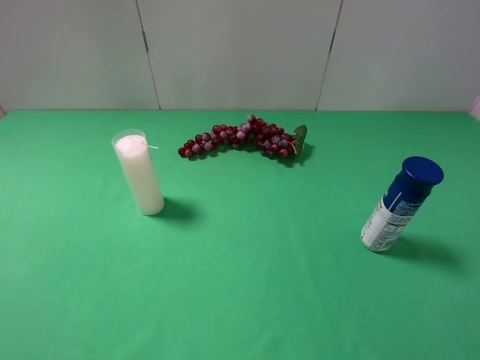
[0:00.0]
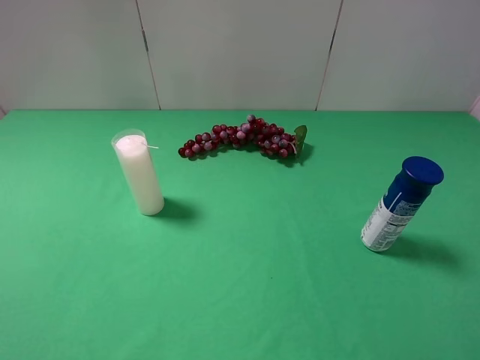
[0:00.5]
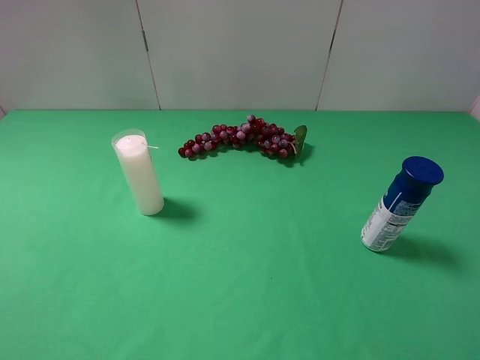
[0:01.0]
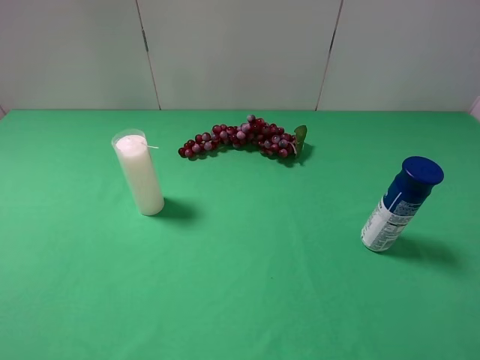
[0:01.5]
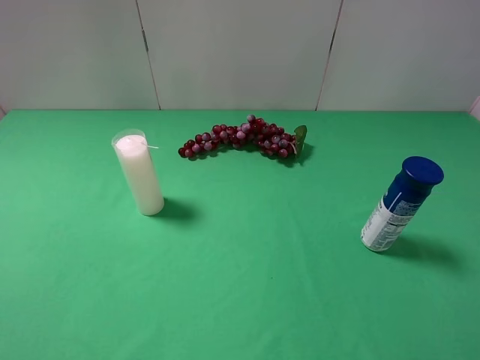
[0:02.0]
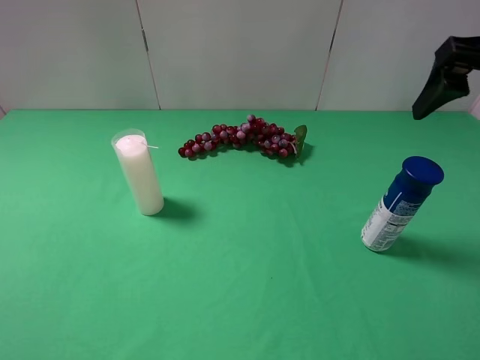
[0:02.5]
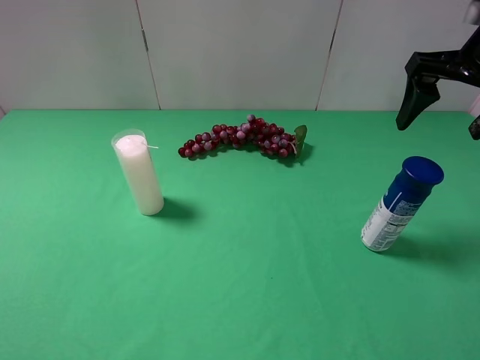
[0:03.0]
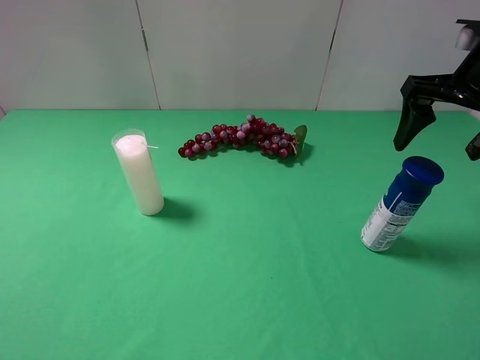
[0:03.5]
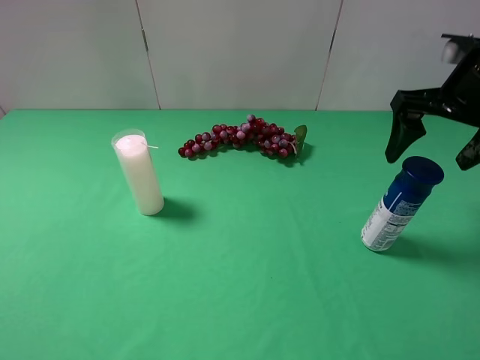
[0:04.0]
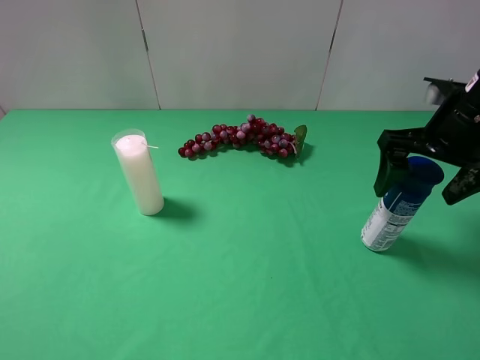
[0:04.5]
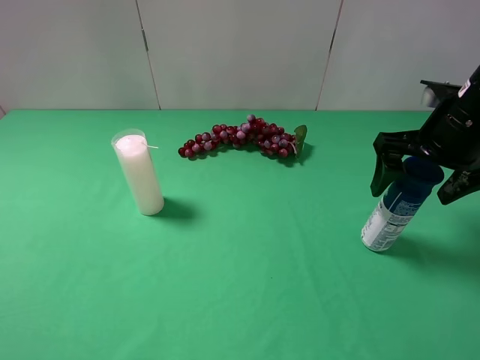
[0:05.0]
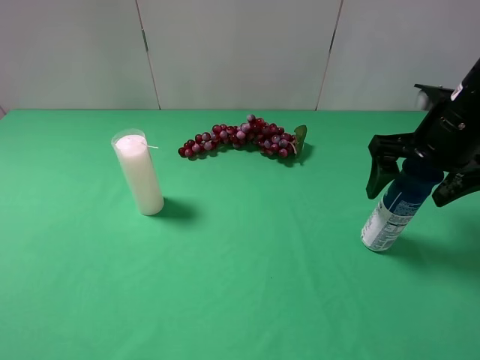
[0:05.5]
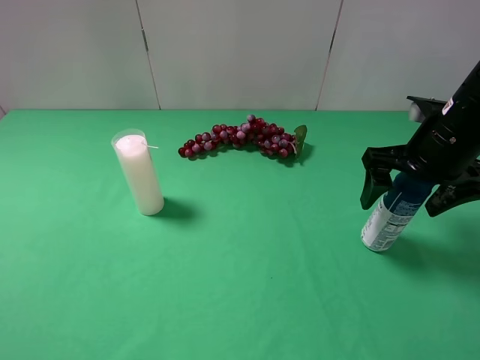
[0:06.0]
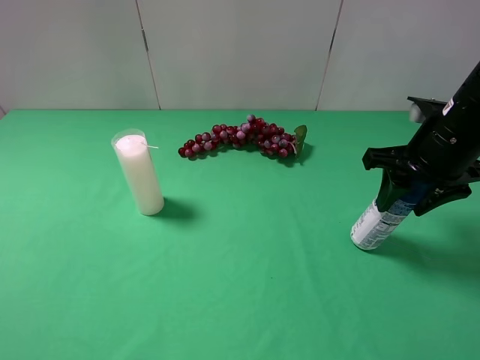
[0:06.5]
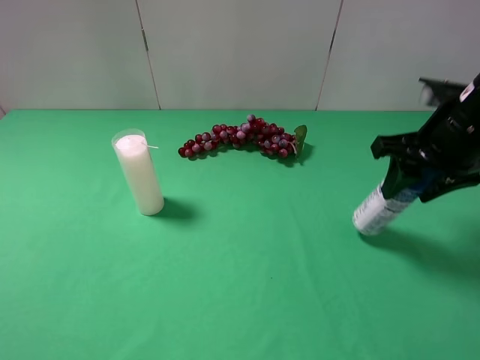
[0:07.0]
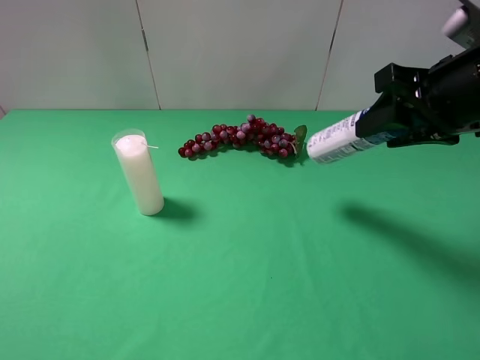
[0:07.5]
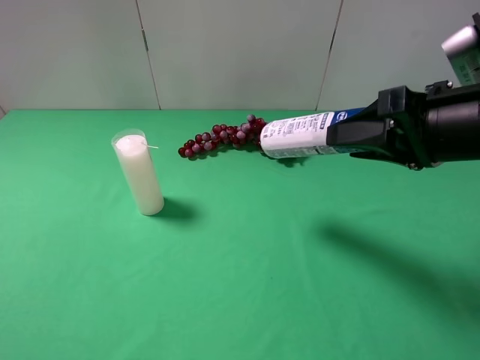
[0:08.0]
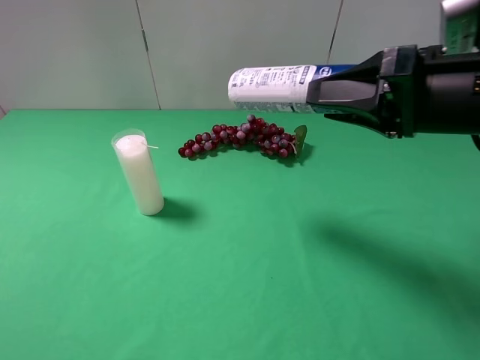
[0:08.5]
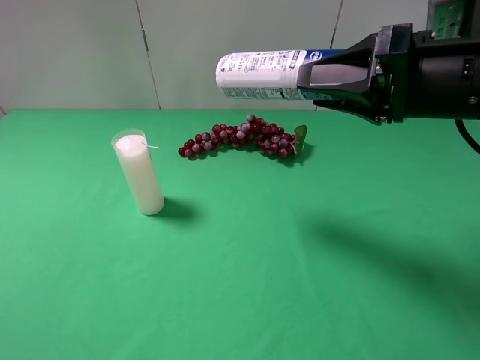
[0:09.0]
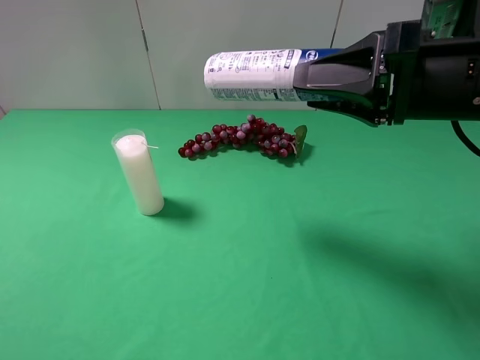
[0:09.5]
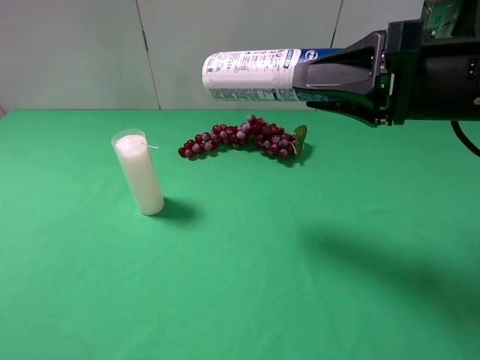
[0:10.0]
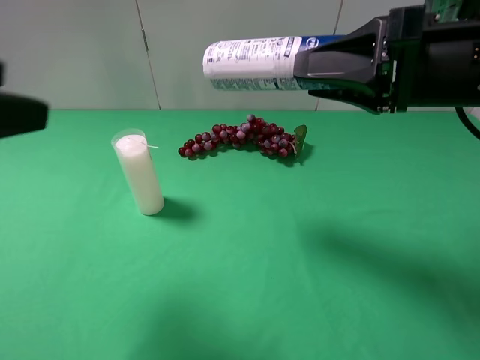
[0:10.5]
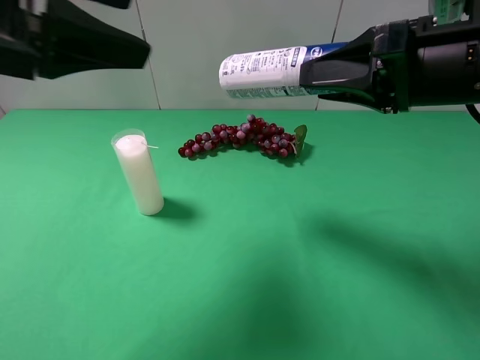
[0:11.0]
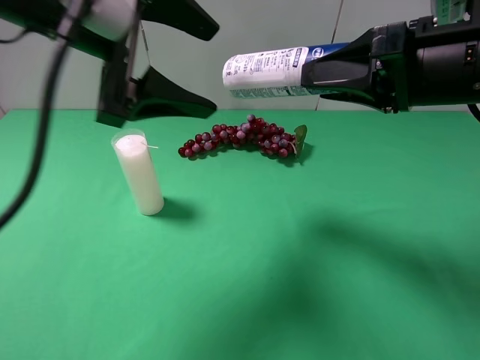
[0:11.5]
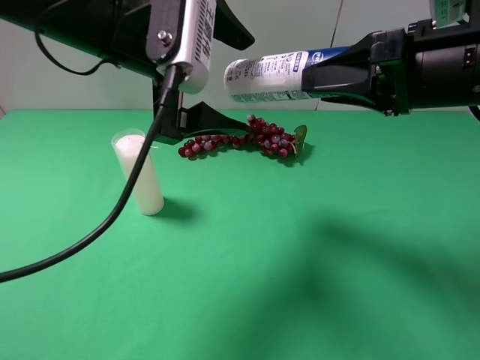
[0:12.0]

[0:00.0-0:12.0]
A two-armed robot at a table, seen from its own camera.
Task of the whole recording: use the right gripper to pick up the item and transfer it from the right gripper to the left gripper.
Step, 0:00.0 to 0:06.0: Use the right gripper to grab the yogurt on the right side of the table.
0:02.0 to 0:04.0: The right gripper moves forward, roughly 20 cm.
0:04.0 to 0:06.0: The right gripper is displaced downward by approximately 5 cm.
0:06.0 to 0:08.0: The right gripper goes about 10 cm backward and upward, and closes.
0:08.0 to 0:10.0: There are only small adjustments of the grippers.
0:10.0 to 0:12.0: The left gripper goes roughly 30 cm forward and to the right, and opens up.

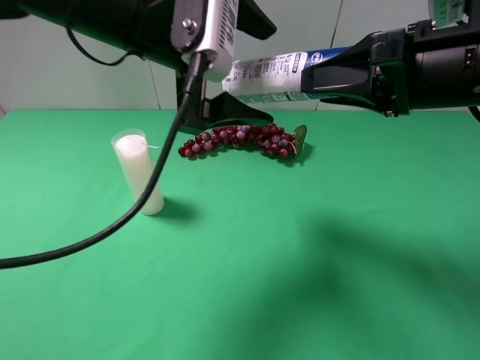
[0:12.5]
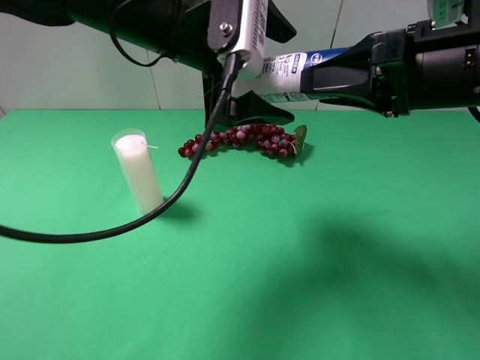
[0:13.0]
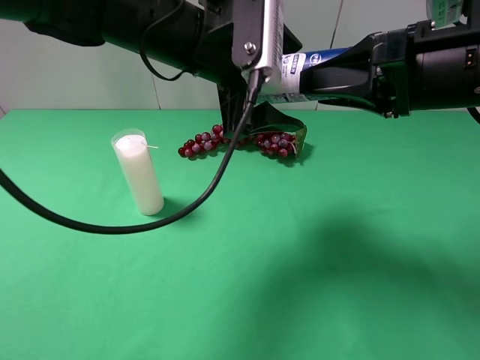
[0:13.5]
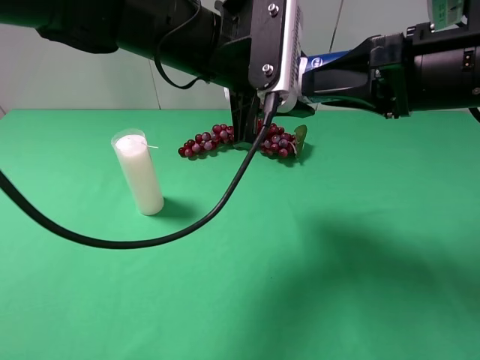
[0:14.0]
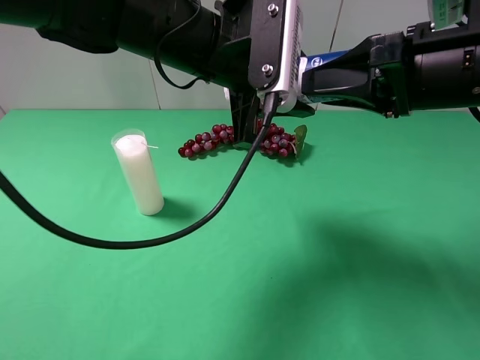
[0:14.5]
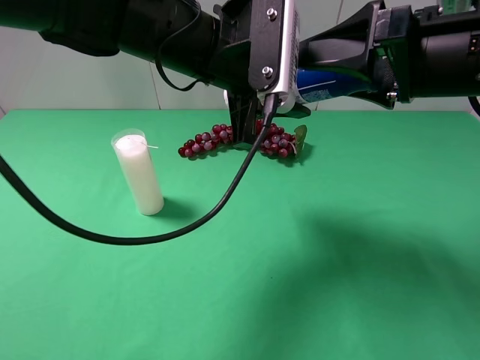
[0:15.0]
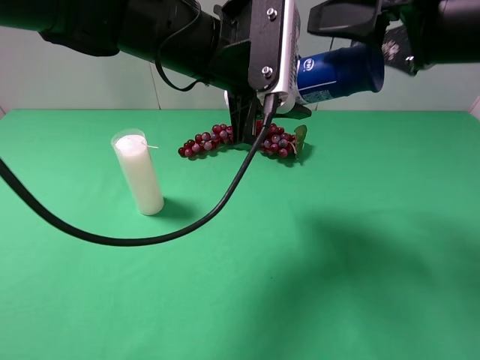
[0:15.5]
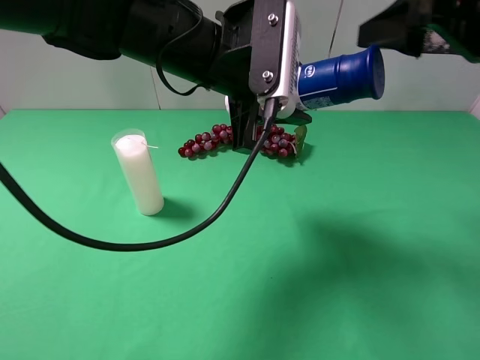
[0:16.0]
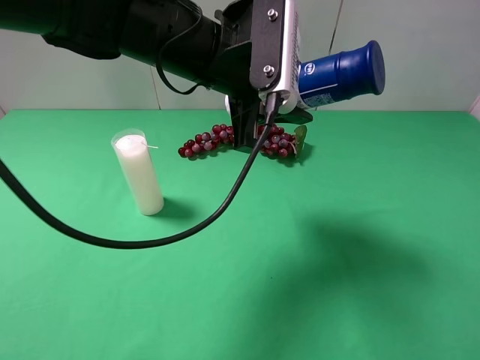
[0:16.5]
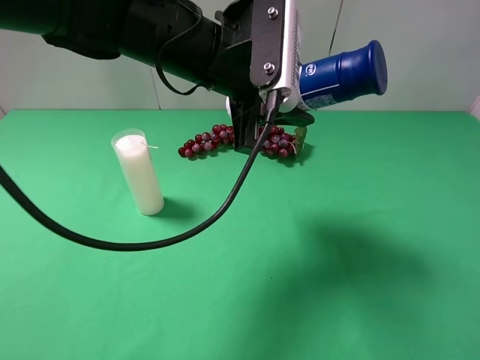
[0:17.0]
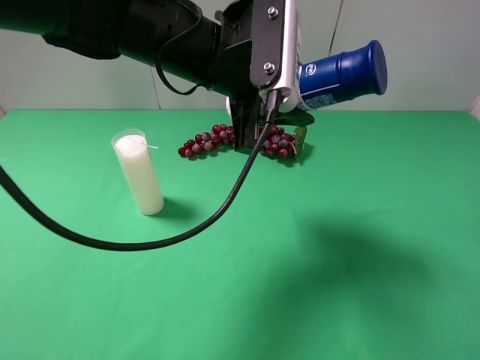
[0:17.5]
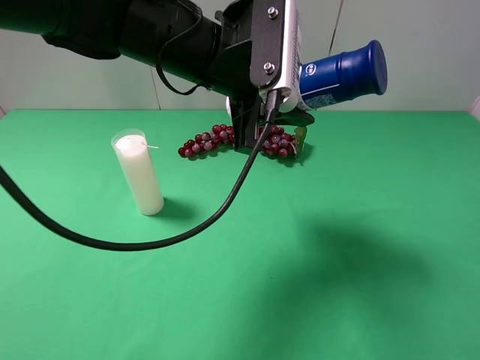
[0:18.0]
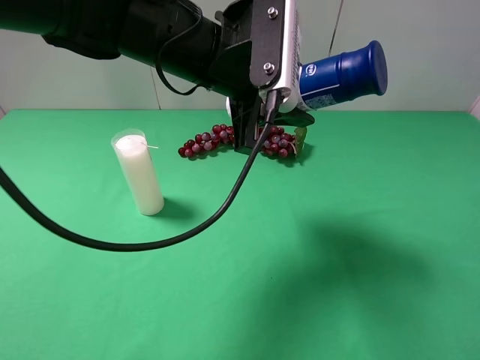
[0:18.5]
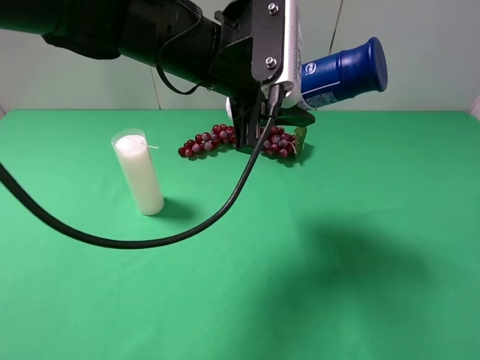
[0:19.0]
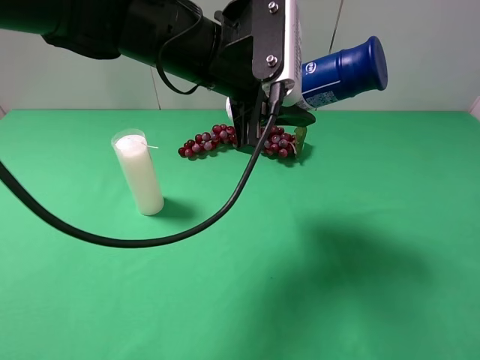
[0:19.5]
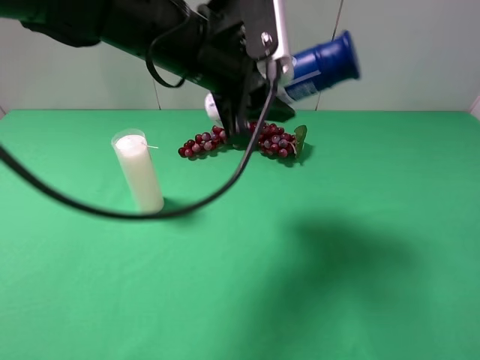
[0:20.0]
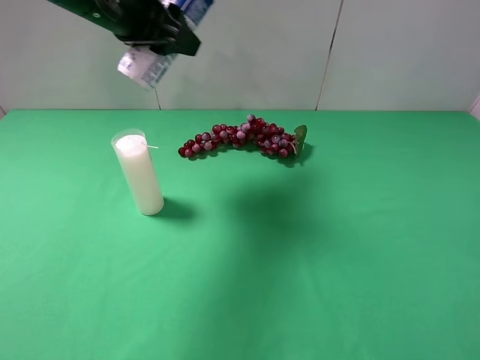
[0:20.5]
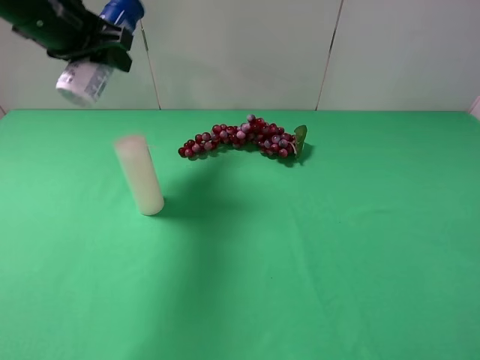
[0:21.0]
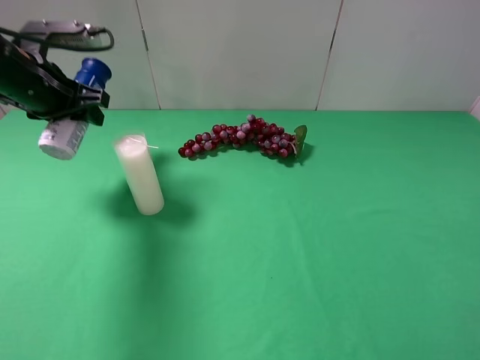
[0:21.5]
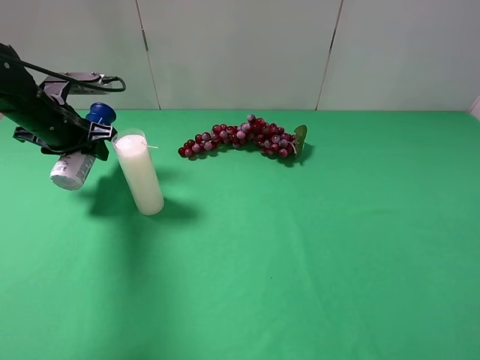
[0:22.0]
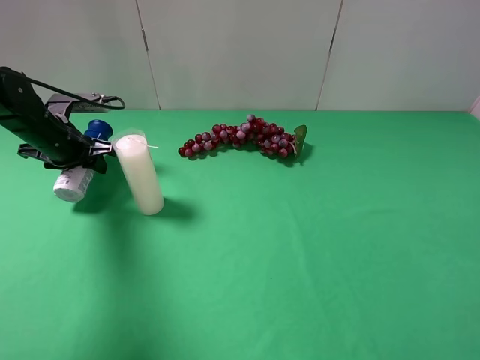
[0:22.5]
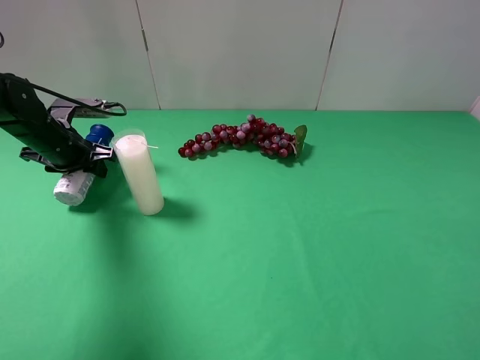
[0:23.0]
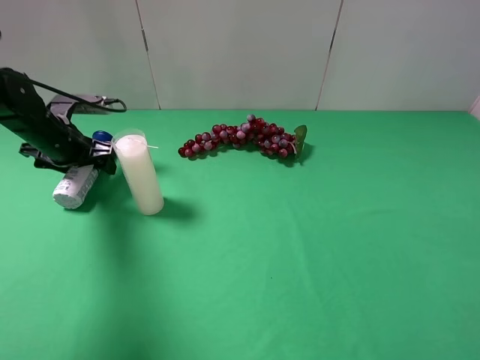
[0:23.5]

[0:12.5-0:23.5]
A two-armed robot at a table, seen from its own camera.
Task of the whole recording: use the right gripper to pick up the item and transfer it from the right gripper to the left gripper.
Step, 0:12.5 to 0:15.0: Pass the yogurt to the left gripper.
0:12.5 to 0:14.5: The left gripper changes place by some 5 cm, and closes its fingers.
0:14.5 to 0:16.0: The right gripper moves about 5 cm, and opens its fingers.
0:16.0 to 0:18.0: The right gripper moves backward, approximately 20 cm.
0:18.0 to 0:20.0: The grippers stay close to where they were, moving slightly.
0:20.0 to 0:21.5: The left gripper is displaced to the left by roughly 20 cm.
0:21.5 to 0:23.5: The left gripper is displaced downward by about 10 cm, and opens up.

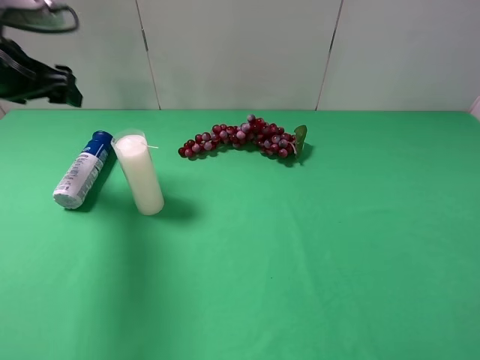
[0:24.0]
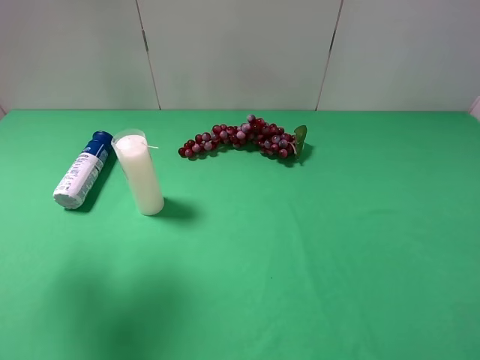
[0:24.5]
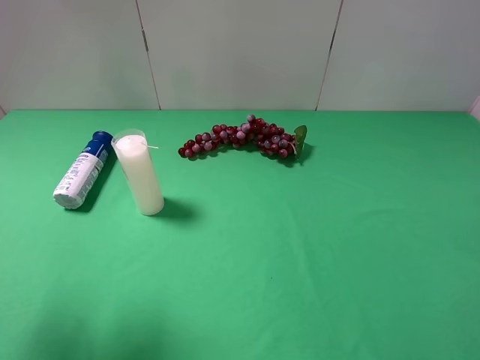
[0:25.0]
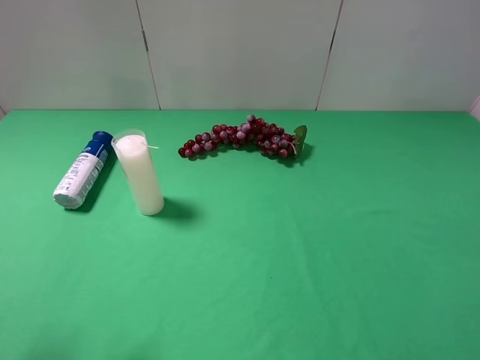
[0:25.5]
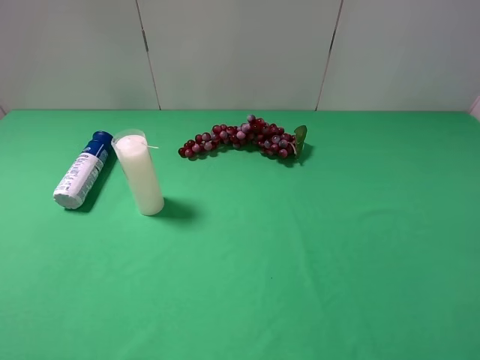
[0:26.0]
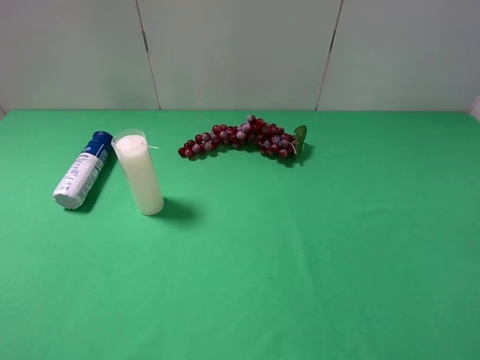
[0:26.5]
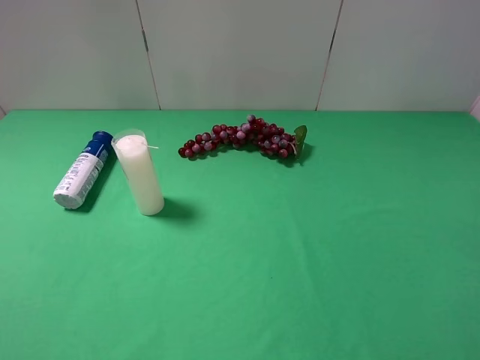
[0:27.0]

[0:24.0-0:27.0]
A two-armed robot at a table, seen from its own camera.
Task of the whole recording: use the right gripper to pick up the item and transfer it from the right gripper to the left gripper.
0:24.0 to 0:25.5: The left gripper moves backward, some 30 cm.
